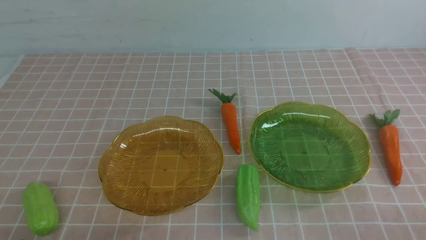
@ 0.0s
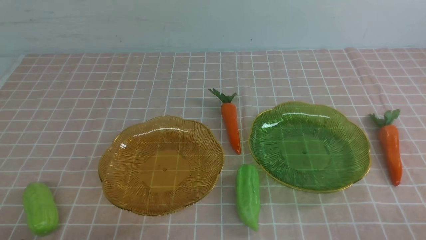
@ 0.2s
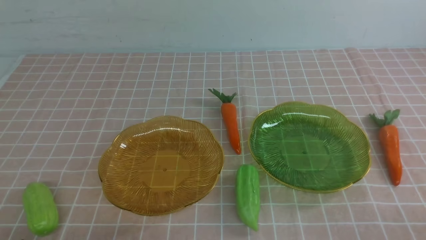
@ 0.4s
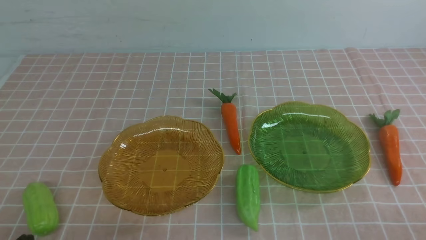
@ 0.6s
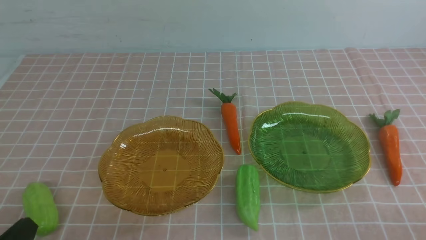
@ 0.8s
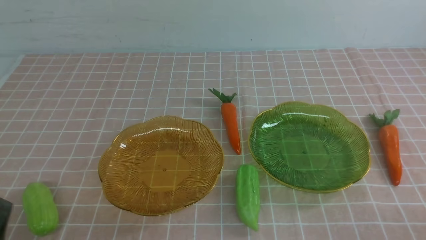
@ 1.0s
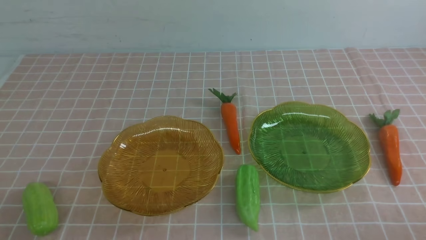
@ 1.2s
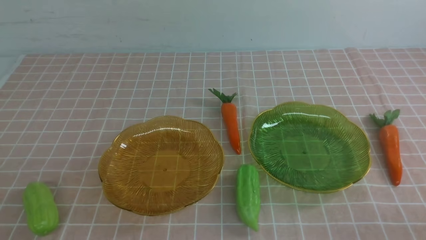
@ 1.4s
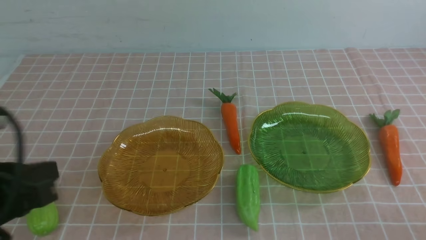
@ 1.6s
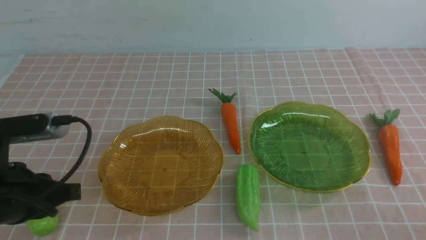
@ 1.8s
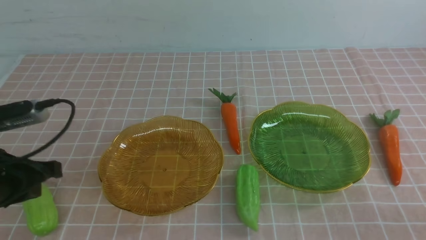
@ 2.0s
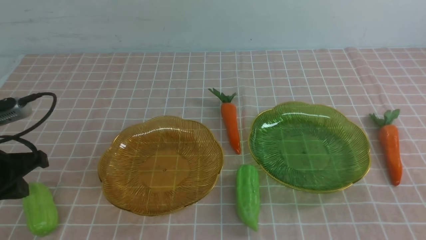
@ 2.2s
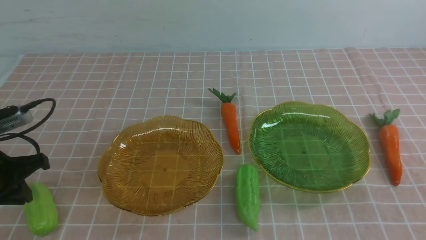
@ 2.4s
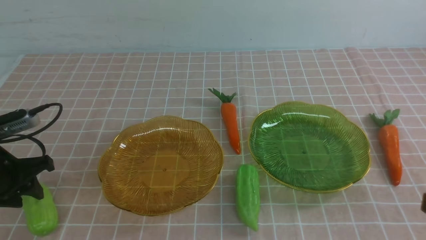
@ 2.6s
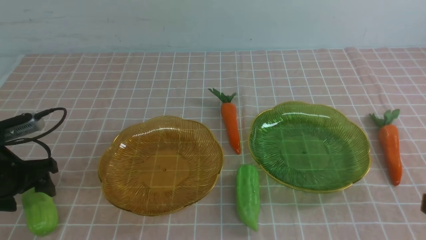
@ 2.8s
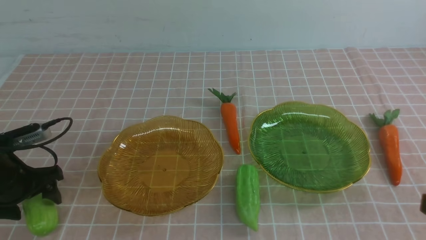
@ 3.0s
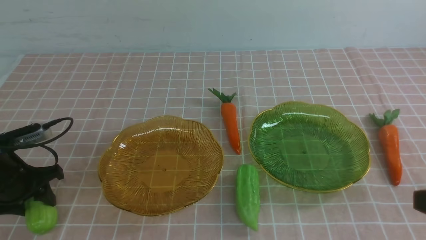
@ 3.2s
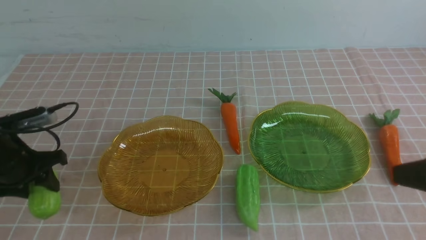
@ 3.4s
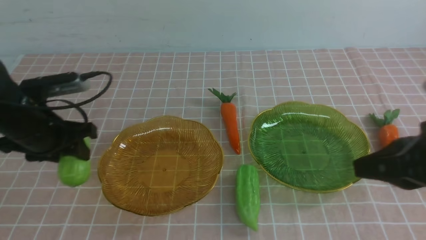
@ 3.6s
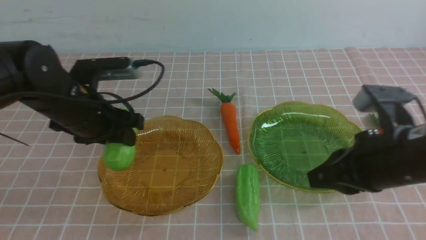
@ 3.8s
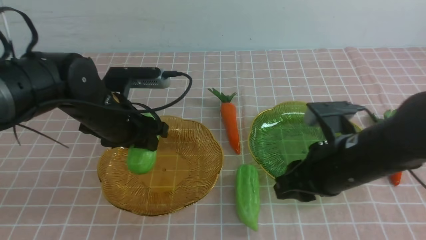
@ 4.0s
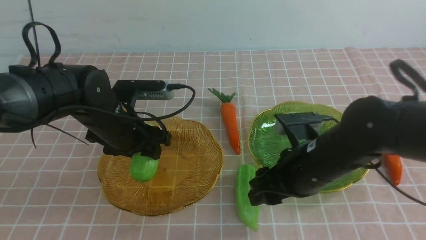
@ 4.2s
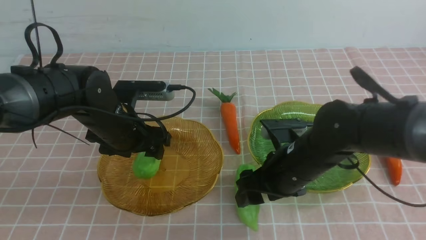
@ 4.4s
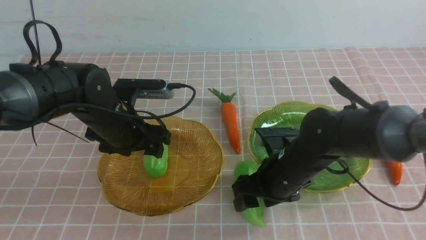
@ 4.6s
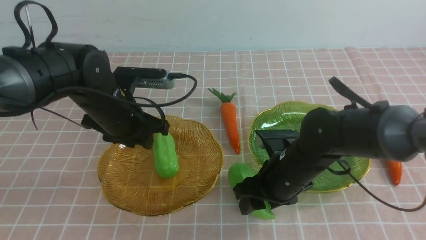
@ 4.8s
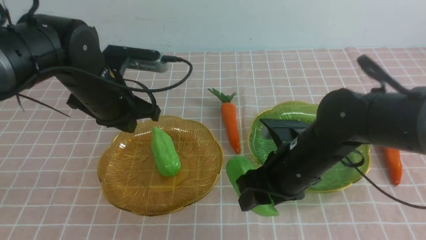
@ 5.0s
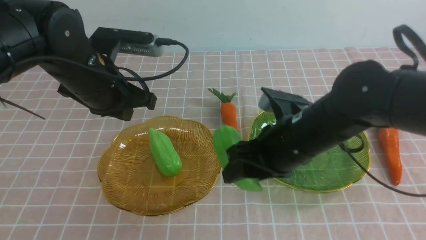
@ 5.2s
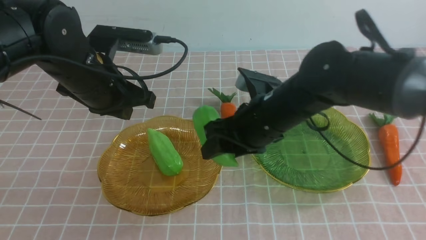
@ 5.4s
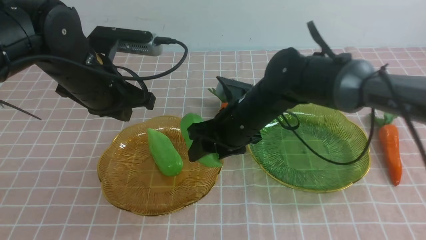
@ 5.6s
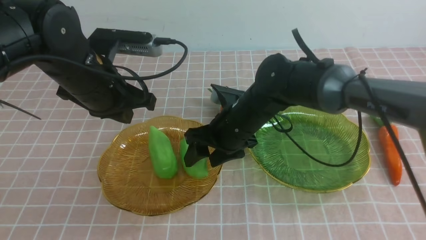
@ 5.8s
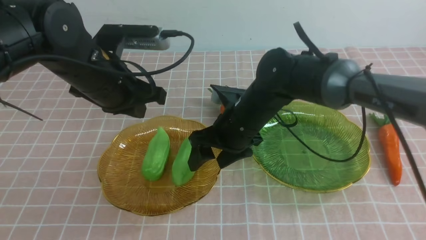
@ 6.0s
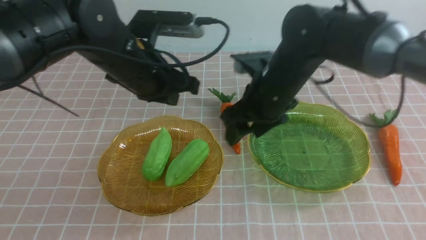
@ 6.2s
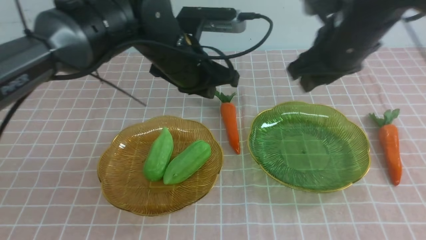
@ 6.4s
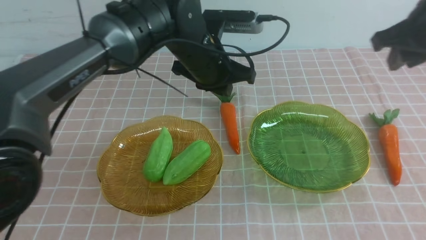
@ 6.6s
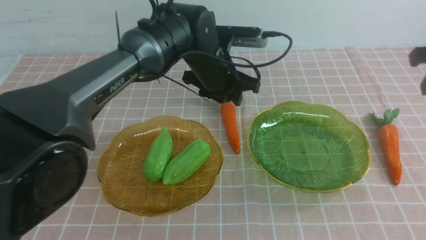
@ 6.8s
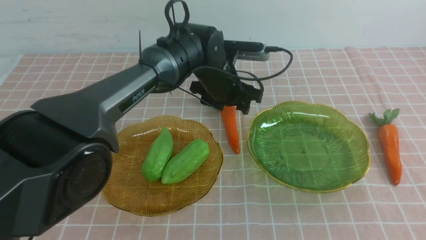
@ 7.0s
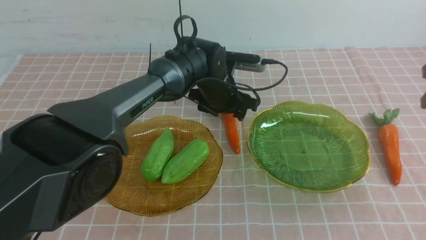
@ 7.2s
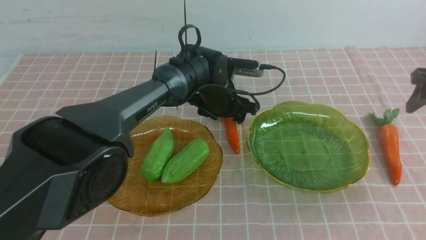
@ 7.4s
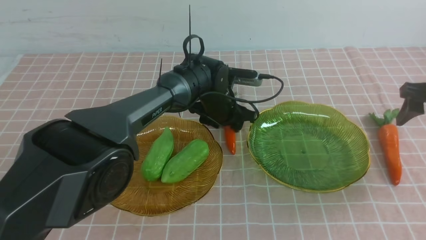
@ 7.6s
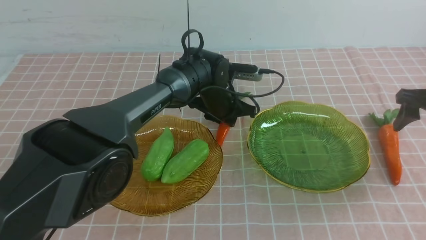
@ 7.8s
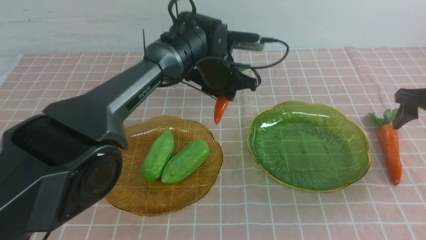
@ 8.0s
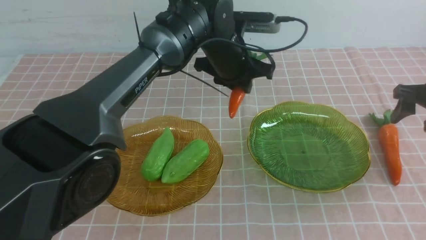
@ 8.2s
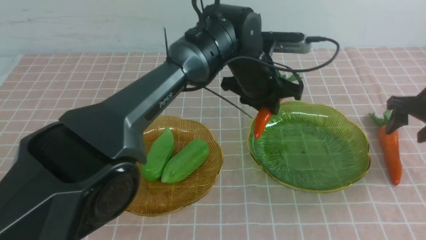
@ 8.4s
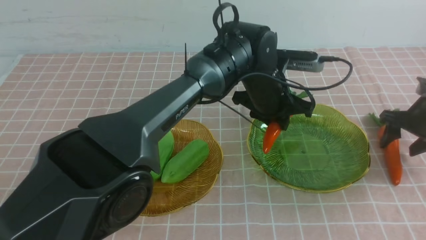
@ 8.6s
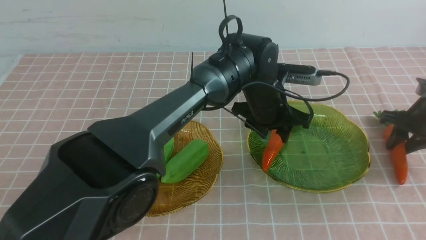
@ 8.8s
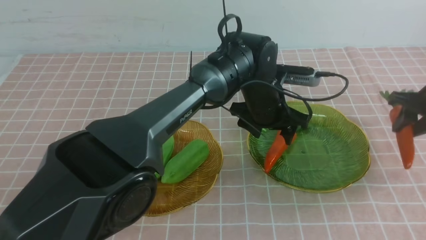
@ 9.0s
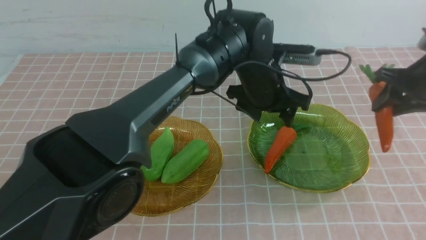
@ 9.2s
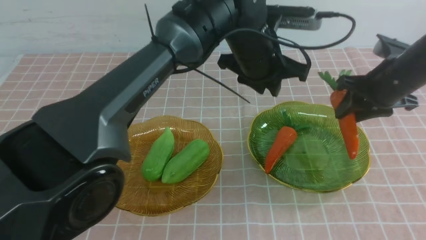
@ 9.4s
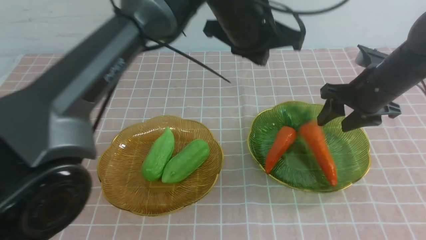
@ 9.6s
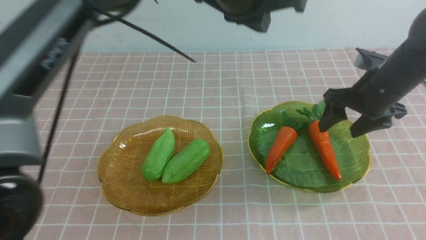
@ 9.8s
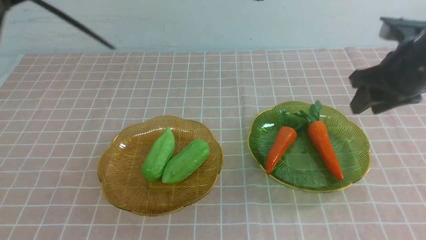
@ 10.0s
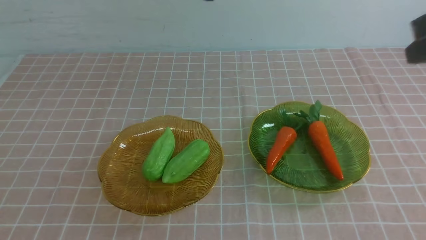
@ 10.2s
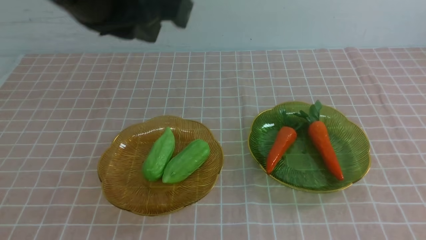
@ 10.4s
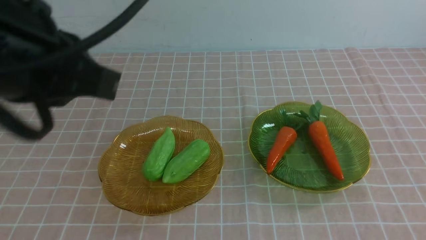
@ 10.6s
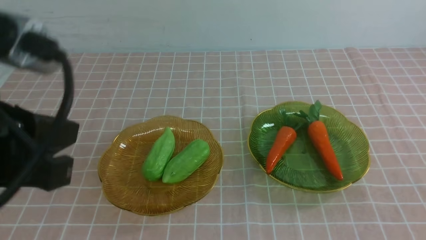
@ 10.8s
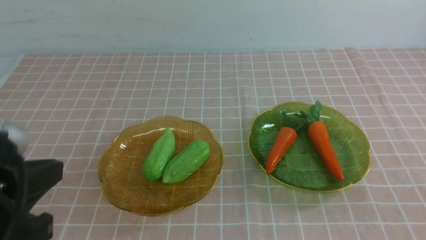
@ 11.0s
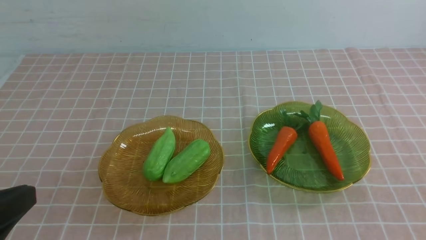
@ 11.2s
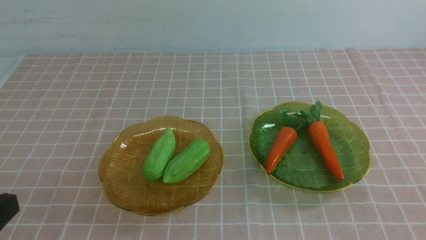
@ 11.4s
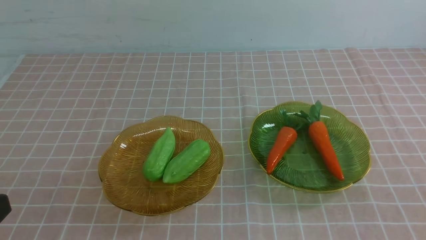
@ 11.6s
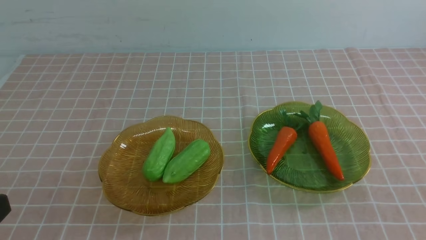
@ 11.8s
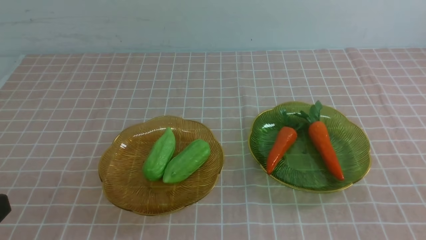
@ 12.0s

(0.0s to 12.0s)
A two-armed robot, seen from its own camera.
Step, 0.0s - 4.2s: use the left arm to grab a chayote and put it into the left plate.
Step, 4.4s - 6.0s: Grab the chayote with your right arm and put it on the left plate.
Step, 6.2s - 8.6s: use the left arm to grab a carrot and put it into the right plate.
Step, 8.8s - 9.6s: use the right arm to grab a carrot and put it into the right plate.
0.0s - 1.6s: The left gripper shifts about 15 cm upward and forward.
1.6s - 3.0s: The left gripper goes some 20 cm forward, downward and to the left, and opens its fingers.
3.0s - 4.4s: The right gripper goes roughly 25 cm to the left, downward and forward, and opens up. Meanwhile the left gripper moves to the right, some 15 cm.
4.4s - 6.0s: The left gripper goes some 15 cm to the right, upward and forward, and closes up; the right gripper travels upward and to the right by approximately 25 cm, and closes up.
6.0s - 7.6s: The left gripper goes roughly 10 cm to the right and forward, moves about 15 cm downward and comes back, and opens and closes again. The right gripper is displaced downward and to the right by some 15 cm, and opens its fingers.
7.6s - 9.0s: The right gripper heads to the left, covering roughly 10 cm, and closes its fingers. The left gripper shifts by some 5 cm.
9.0s - 10.4s: The left gripper is displaced backward, upward and to the left by roughly 30 cm, and closes, while the right gripper heads backward and upward, covering approximately 35 cm, and closes up.
10.4s - 12.0s: The right gripper moves downward and backward, roughly 15 cm. The left gripper is displaced downward, backward and to the left by some 25 cm.

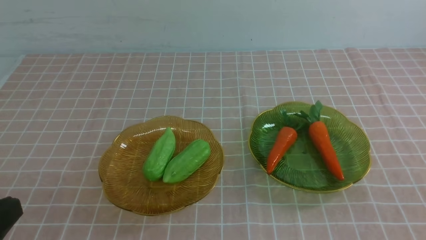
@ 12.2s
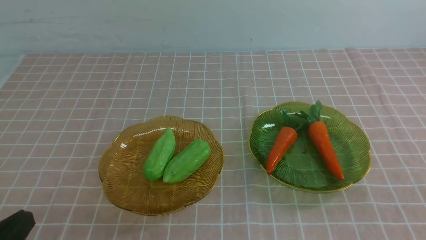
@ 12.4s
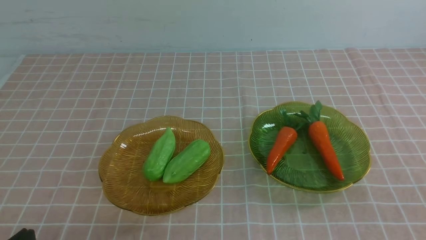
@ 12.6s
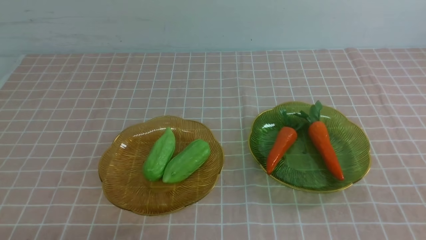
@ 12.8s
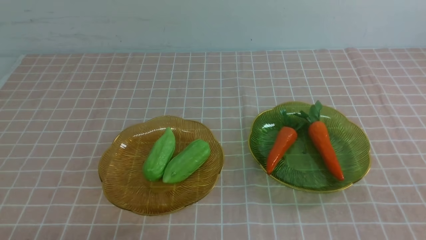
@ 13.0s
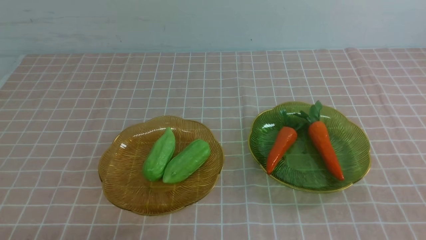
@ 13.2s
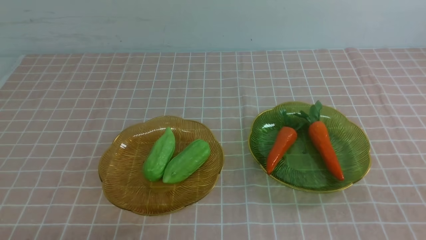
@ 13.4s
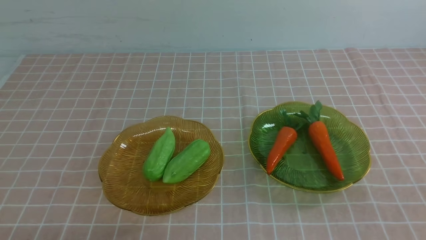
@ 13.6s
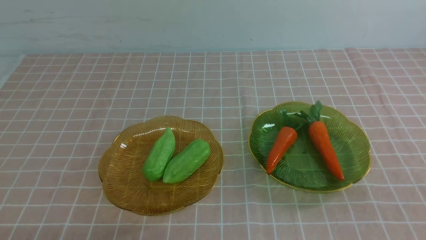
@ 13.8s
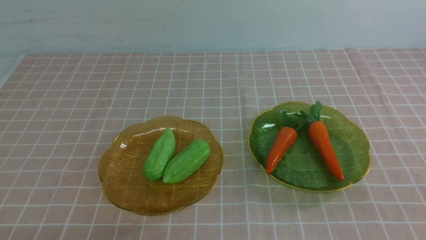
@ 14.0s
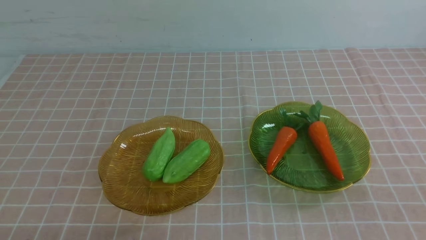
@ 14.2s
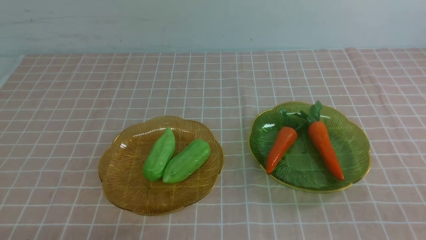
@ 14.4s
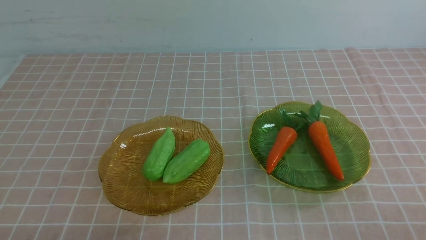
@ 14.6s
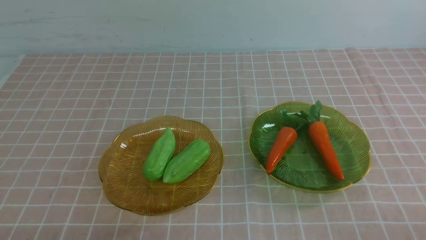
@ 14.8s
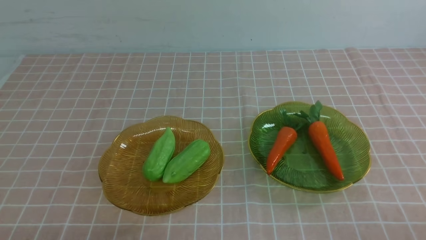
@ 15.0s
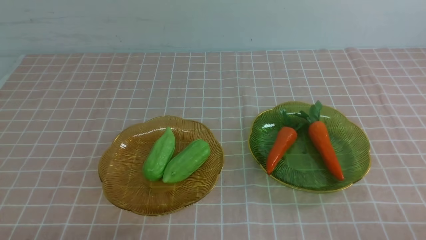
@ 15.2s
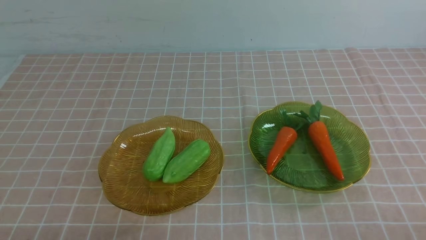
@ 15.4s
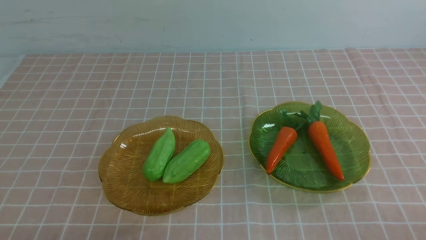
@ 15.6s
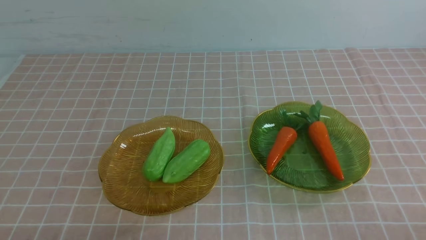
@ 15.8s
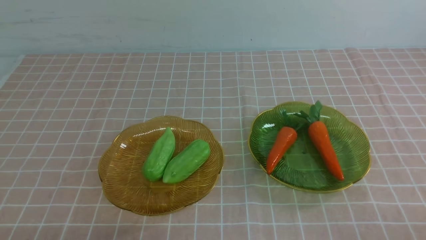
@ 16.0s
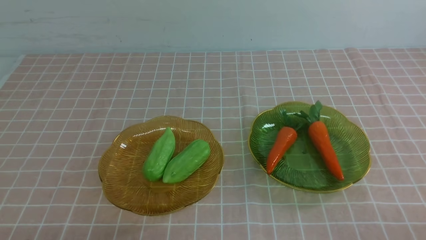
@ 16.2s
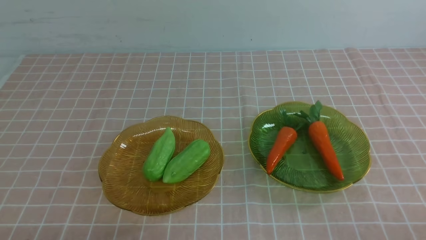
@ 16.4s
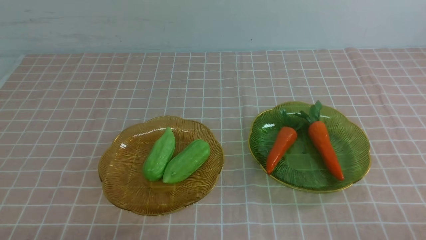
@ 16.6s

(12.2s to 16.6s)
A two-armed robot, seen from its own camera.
12.2s - 13.6s: The left gripper heads downward, covering approximately 10 cm.
15.2s - 16.6s: Both grippers stay put.
